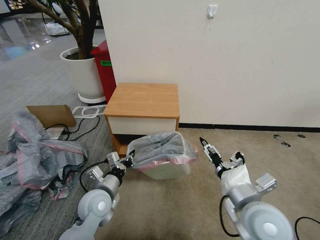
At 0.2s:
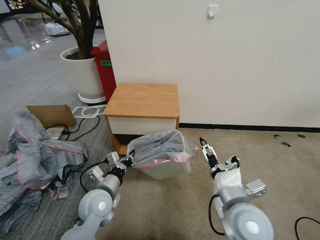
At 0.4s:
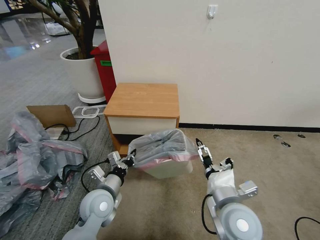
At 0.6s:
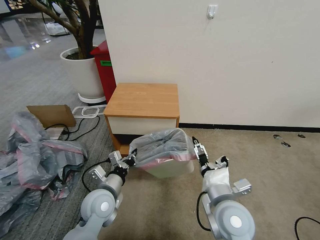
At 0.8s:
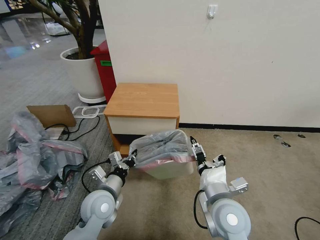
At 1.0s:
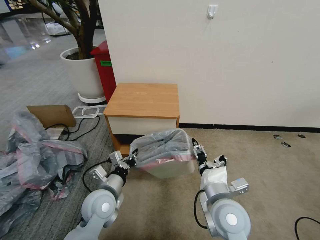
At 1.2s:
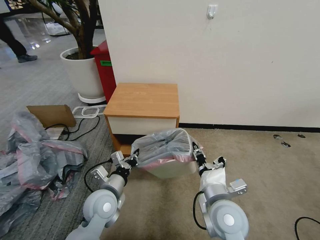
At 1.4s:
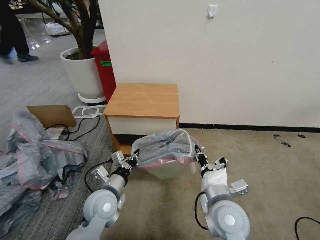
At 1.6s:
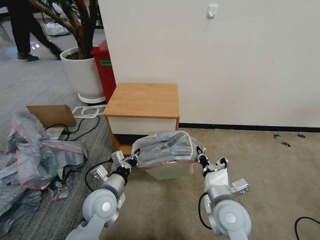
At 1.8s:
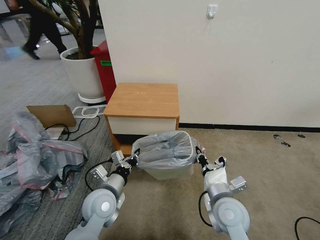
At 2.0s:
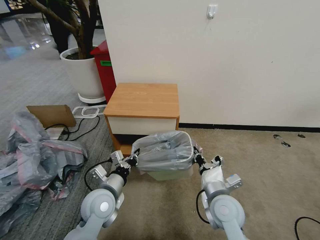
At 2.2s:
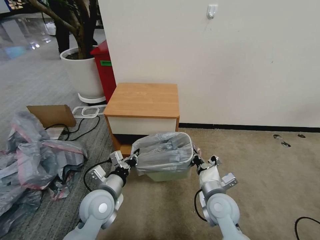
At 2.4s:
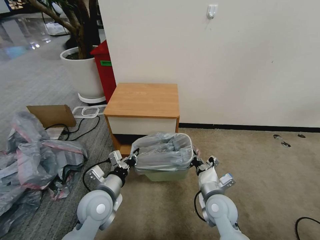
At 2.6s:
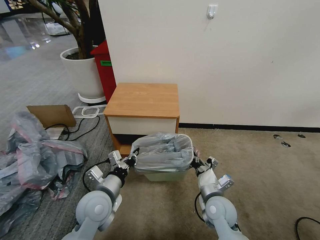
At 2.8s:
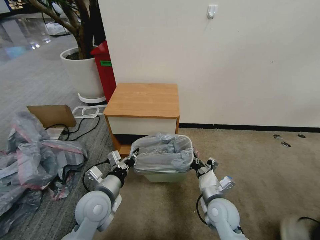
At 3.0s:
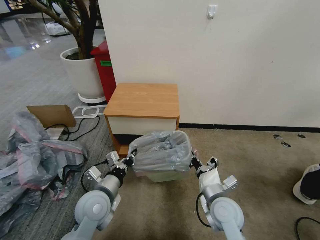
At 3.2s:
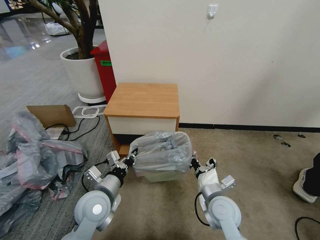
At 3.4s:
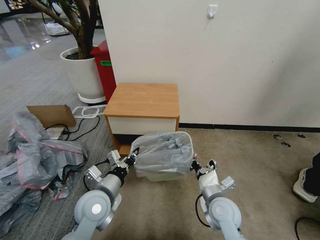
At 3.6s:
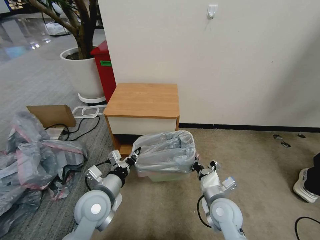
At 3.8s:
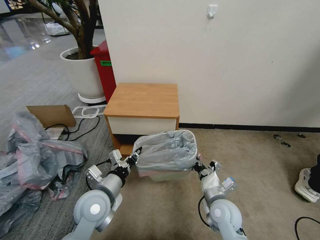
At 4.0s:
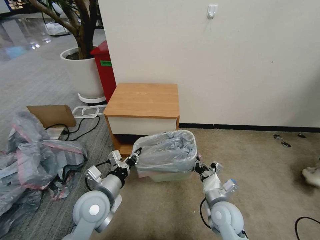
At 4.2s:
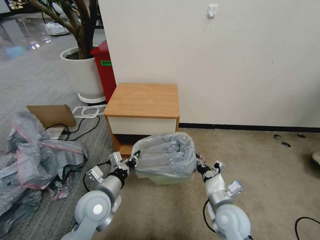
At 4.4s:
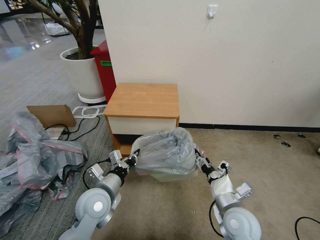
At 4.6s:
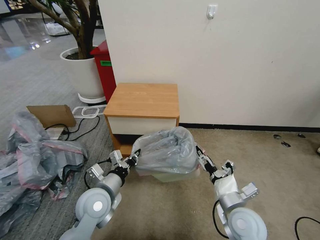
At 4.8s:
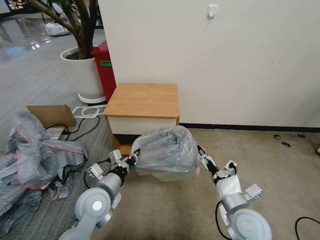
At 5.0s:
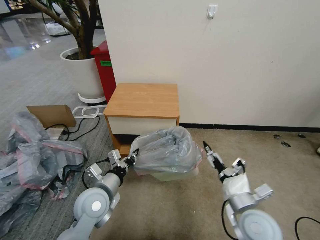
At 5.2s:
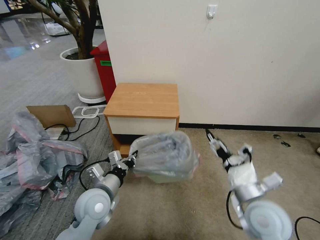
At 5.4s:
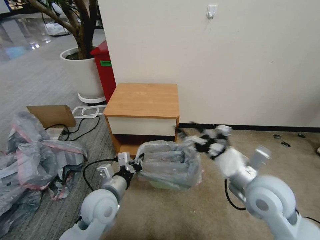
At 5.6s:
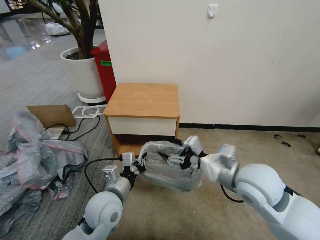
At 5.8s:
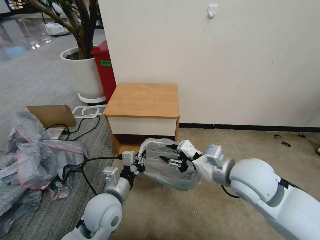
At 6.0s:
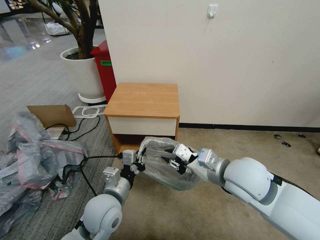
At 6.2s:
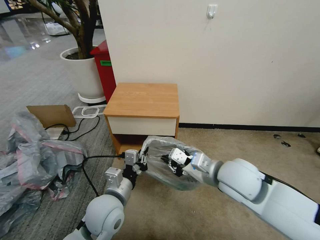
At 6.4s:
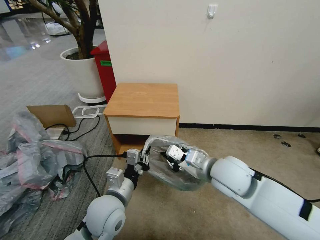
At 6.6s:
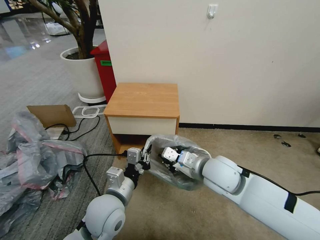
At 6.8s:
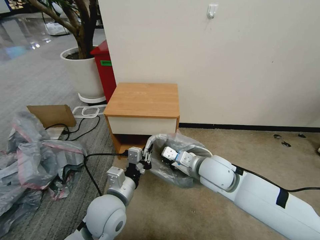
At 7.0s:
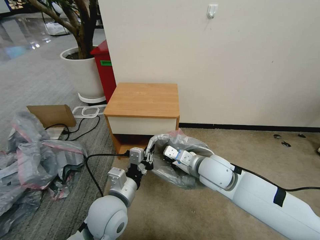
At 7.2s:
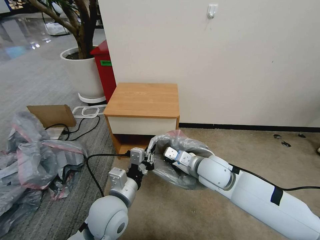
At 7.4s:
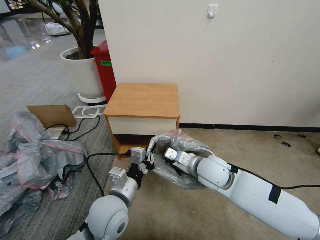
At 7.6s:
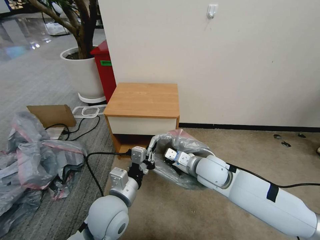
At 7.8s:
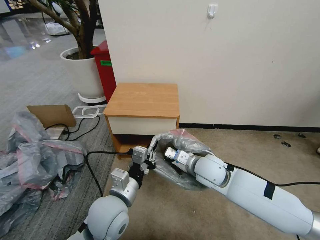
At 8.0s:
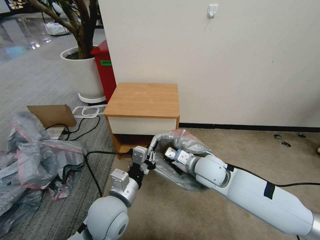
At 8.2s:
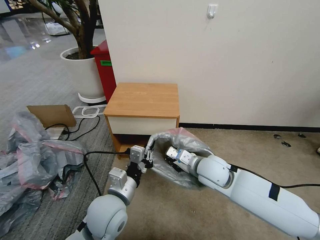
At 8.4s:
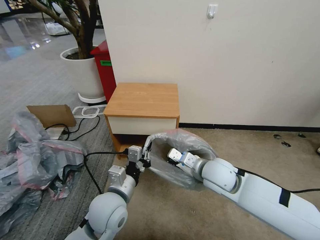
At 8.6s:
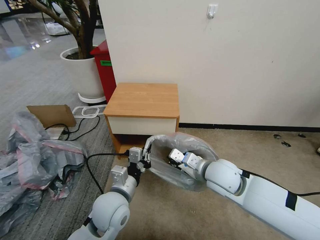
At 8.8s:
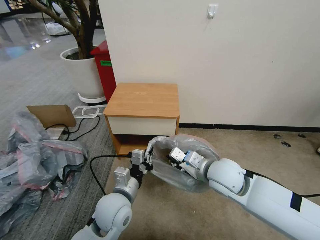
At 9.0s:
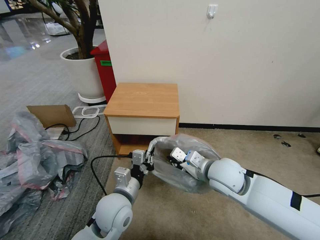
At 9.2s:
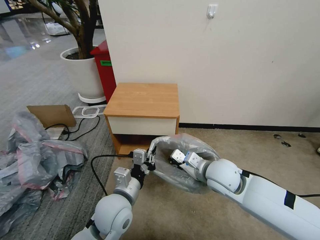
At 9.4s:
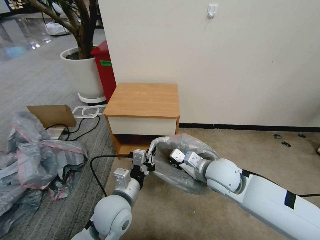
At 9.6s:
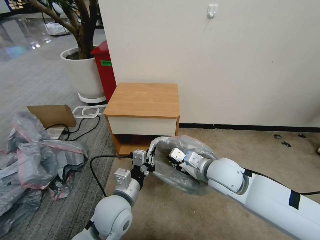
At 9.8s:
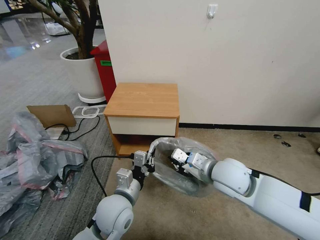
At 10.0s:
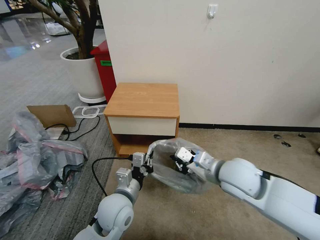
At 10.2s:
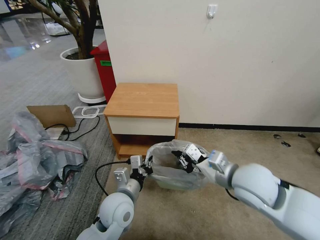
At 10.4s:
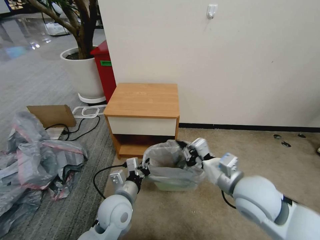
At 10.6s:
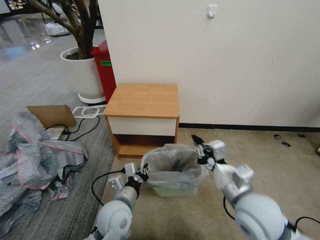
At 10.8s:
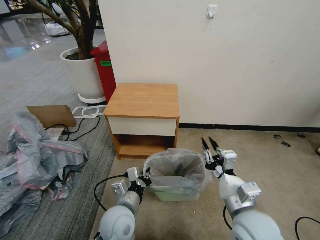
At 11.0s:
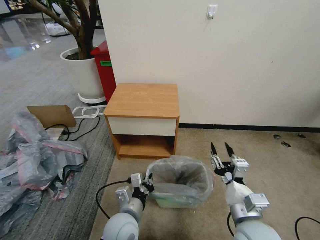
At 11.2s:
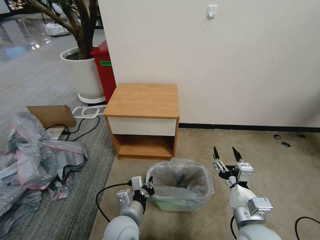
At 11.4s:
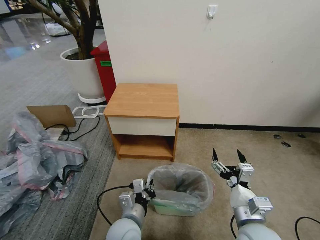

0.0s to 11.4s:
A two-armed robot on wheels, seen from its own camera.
Task of the whole recording: Pick up the garbage bag from the table and place it over the trash can.
0.0s to 1.4s: The right gripper heads to the left and downward, covering approximately 10 cm, and closes its fingers.
1.4s to 2.8s: The right gripper goes some 10 cm downward.
2.8s to 4.2s: The grippers make only small movements.
4.2s to 5.6s: The right gripper goes approximately 20 cm upward.
5.6s to 7.2s: The right gripper moves to the left, downward and forward, approximately 15 cm, and closes its fingers.
7.2s to 8.6s: The grippers move only a little.
8.6s to 10.0s: The right gripper ends up roughly 5 cm from where it was.
10.0s to 11.4s: The right gripper shifts about 15 cm backward and downward, and opens up, while the left gripper moves backward and downward, some 5 cm.

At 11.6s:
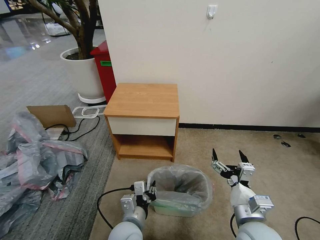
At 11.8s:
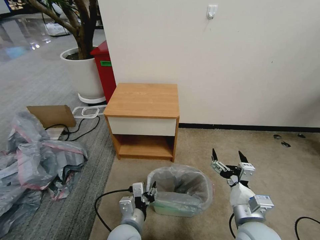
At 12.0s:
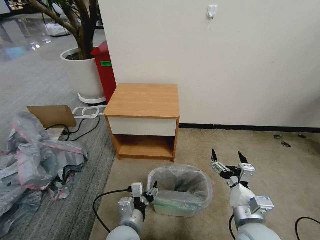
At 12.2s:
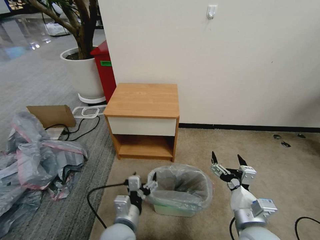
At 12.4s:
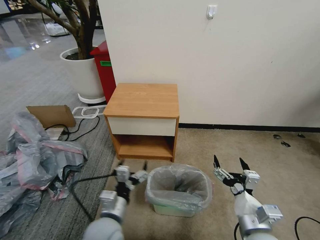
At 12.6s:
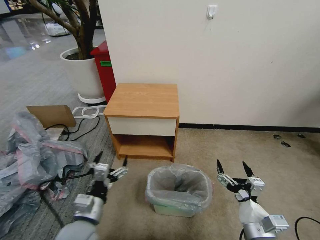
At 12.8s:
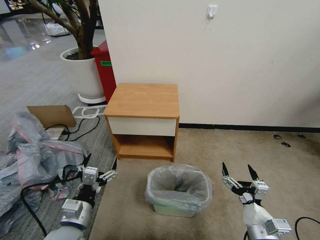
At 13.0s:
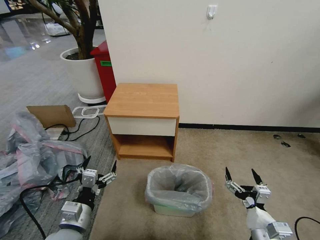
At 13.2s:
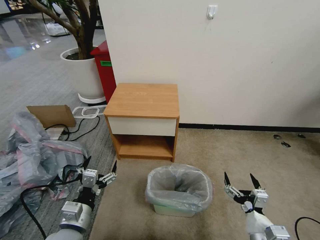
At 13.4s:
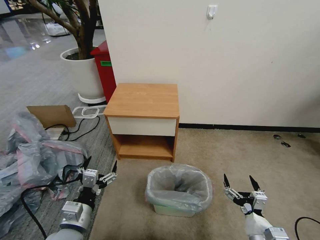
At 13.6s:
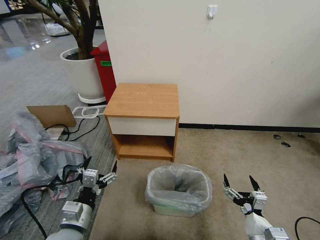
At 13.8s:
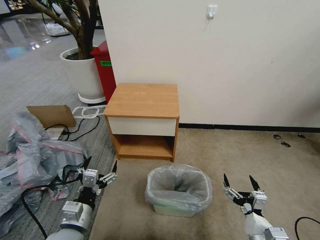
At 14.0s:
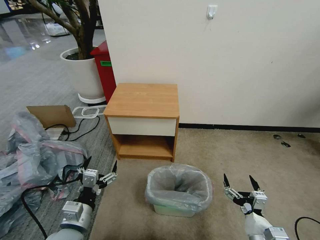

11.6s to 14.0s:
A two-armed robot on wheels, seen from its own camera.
Task of the whole recording: Pick up the garbage bag from the table and place it over the trash can.
11.6s to 12.8s: The left gripper goes some 15 cm to the left, and opens its fingers. Meanwhile the right gripper moves some 10 cm.
12.8s to 14.0s: The grippers stay close to where they were, moving slightly.

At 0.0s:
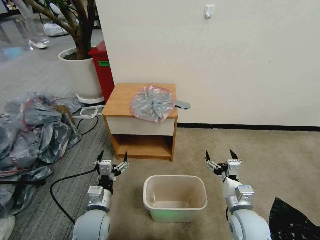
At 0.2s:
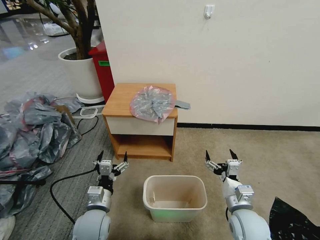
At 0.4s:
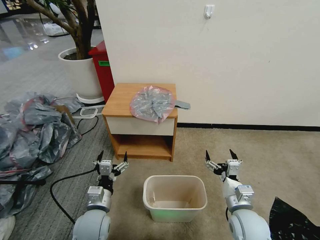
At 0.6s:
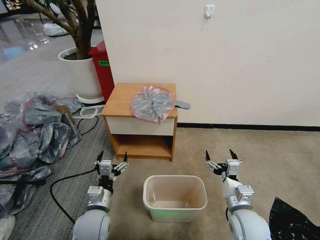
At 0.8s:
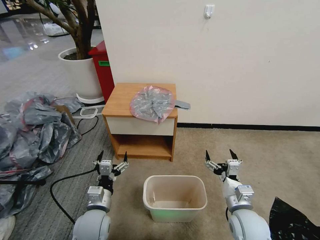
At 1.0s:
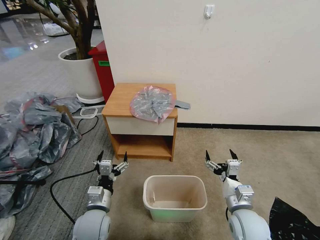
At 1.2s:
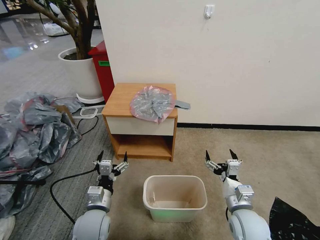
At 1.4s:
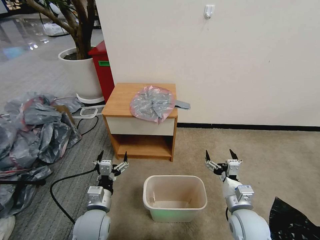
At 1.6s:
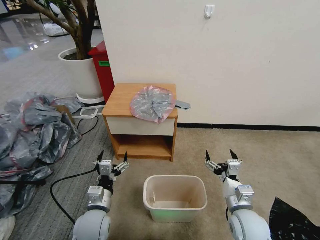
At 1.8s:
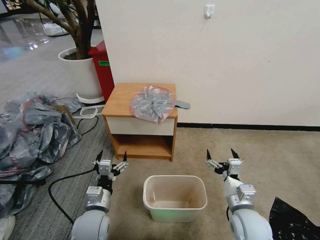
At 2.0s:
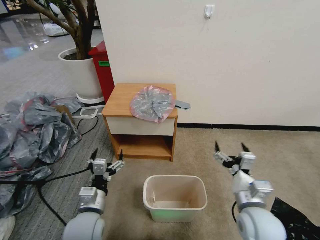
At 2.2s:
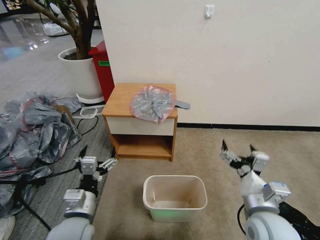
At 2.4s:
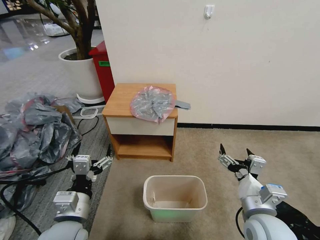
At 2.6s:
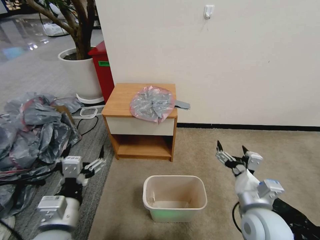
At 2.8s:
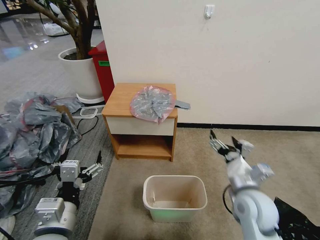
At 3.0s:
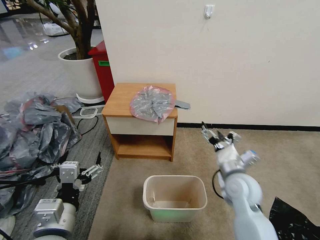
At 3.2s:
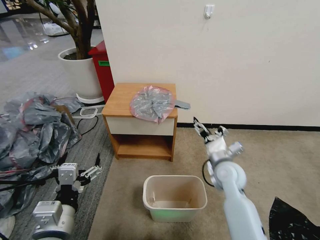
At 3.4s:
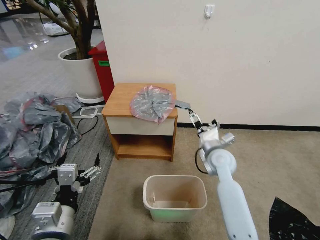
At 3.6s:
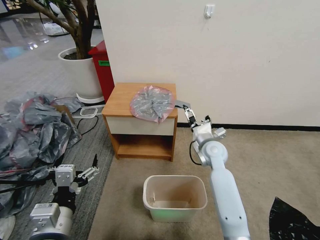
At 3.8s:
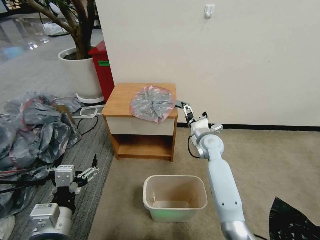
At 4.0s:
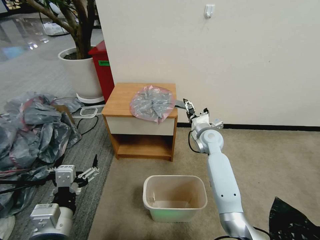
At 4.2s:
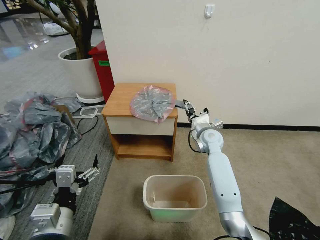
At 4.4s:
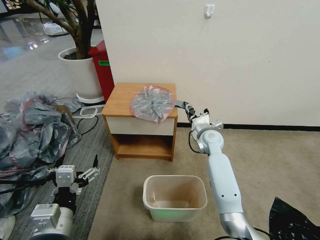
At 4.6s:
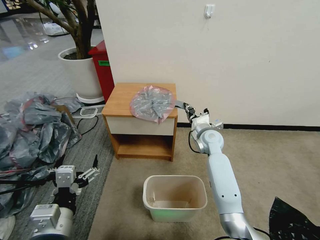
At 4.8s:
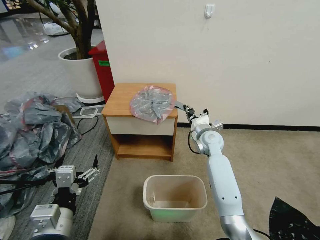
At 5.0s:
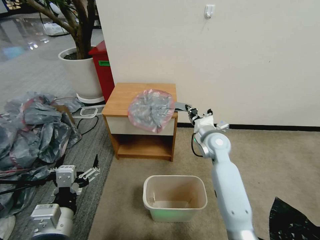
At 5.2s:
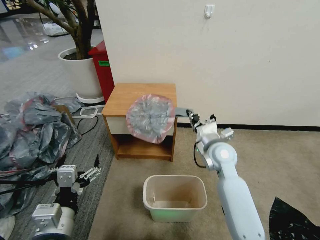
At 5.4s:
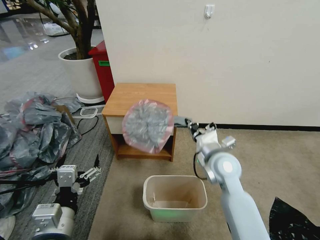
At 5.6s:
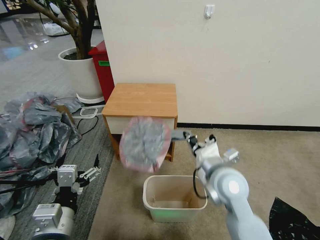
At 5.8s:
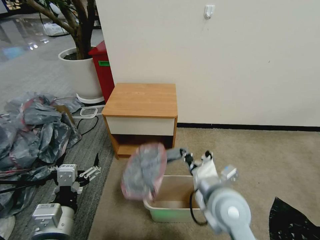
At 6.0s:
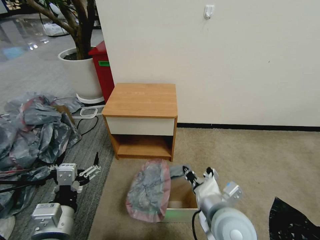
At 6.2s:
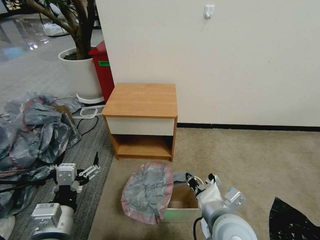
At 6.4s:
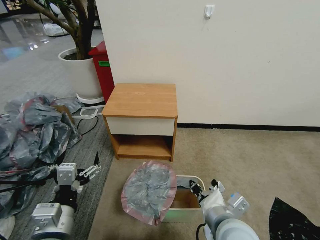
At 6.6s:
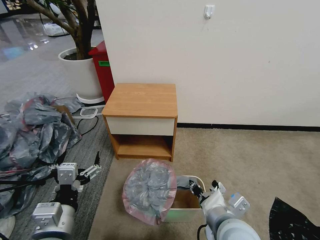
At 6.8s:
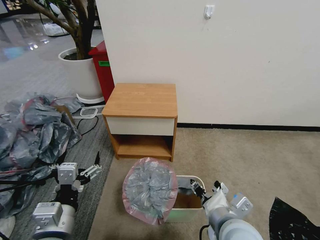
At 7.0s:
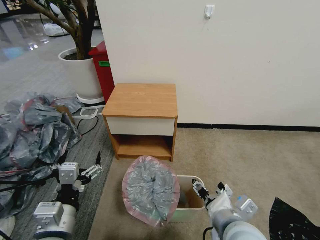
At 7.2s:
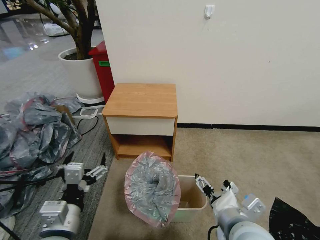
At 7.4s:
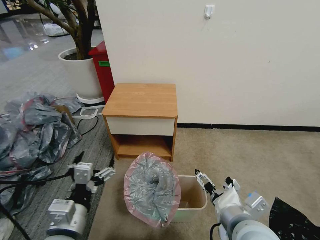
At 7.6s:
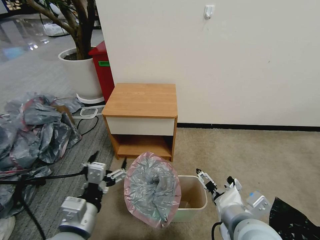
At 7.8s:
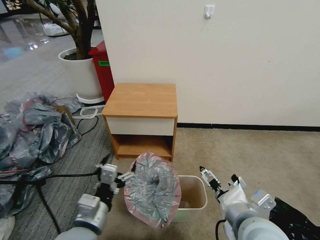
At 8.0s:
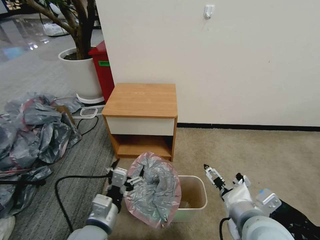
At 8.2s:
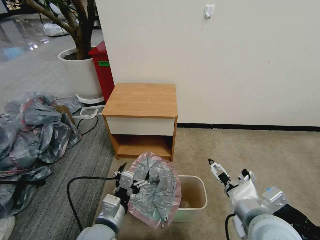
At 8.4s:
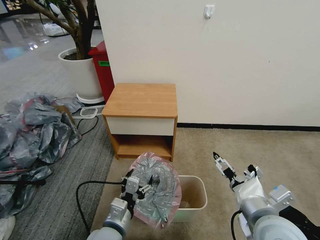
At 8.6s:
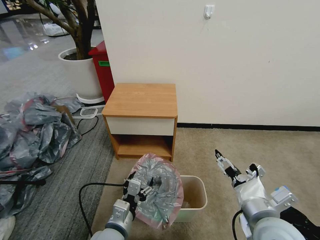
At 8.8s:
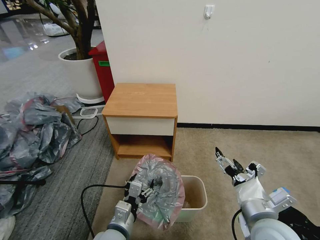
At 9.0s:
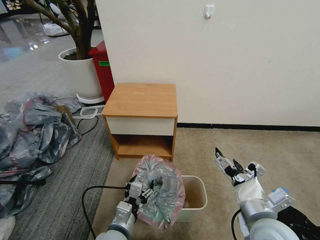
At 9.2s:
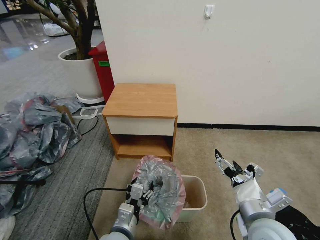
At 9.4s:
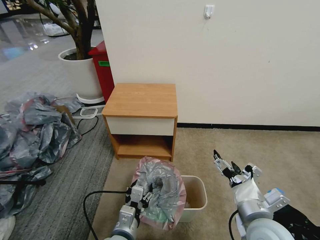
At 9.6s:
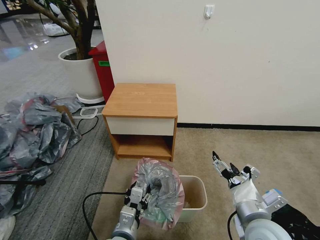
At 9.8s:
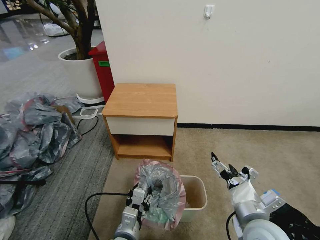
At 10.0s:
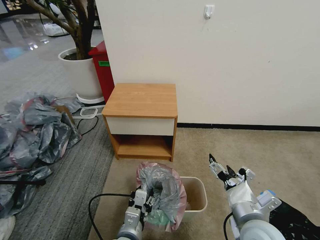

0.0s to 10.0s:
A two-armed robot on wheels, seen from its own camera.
Task of the whole recording: Pick up the garbage bag from the table and place it over the trash can.
1.4s to 2.8s: The left gripper goes approximately 15 cm upward and backward, while the right gripper goes roughly 10 cm upward.
2.8s to 4.2s: The right gripper travels forward by roughly 25 cm.
4.2s to 5.8s: The right gripper moves backward, some 25 cm, and closes.
5.8s to 7.2s: The right gripper goes approximately 5 cm backward, and opens.
7.2s to 8.6s: The right gripper shifts roughly 5 cm to the right. The left gripper travels downward and to the right by about 15 cm.
8.6s to 10.0s: The grippers make only small movements.
